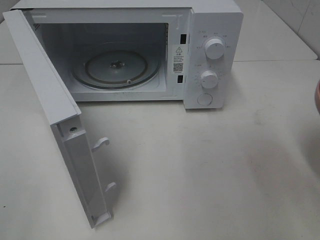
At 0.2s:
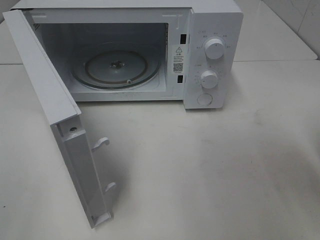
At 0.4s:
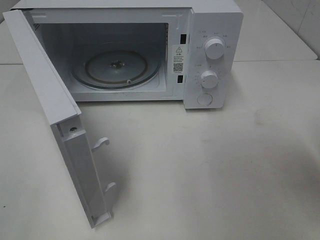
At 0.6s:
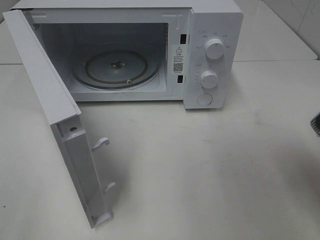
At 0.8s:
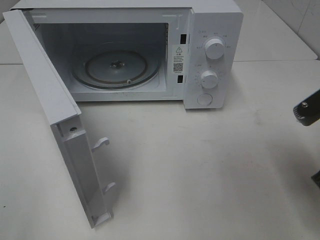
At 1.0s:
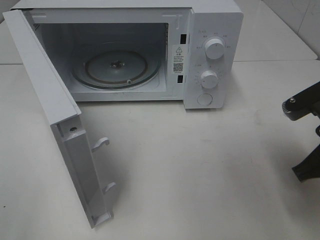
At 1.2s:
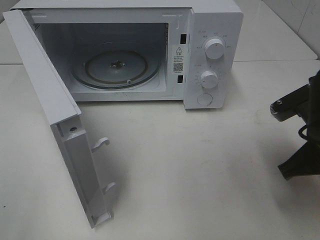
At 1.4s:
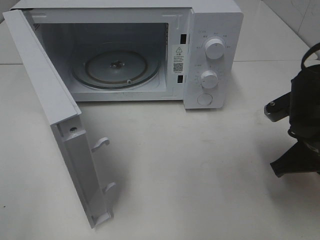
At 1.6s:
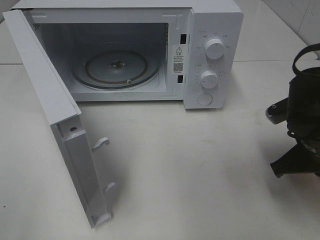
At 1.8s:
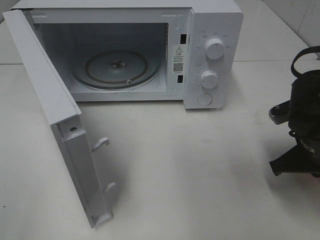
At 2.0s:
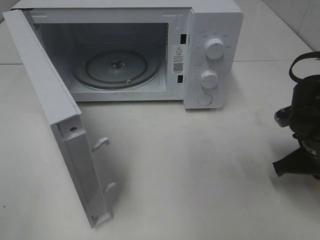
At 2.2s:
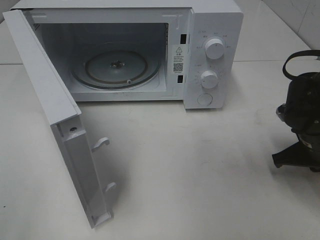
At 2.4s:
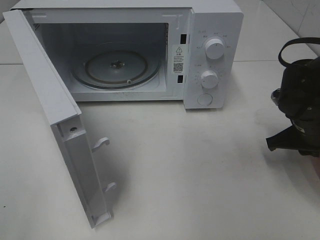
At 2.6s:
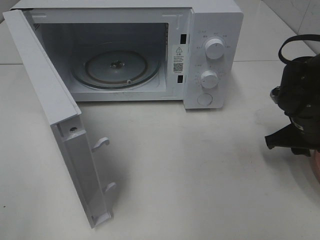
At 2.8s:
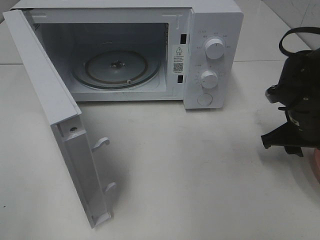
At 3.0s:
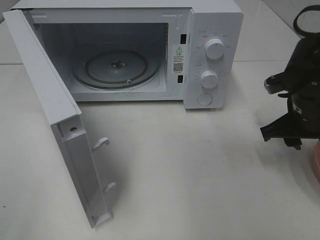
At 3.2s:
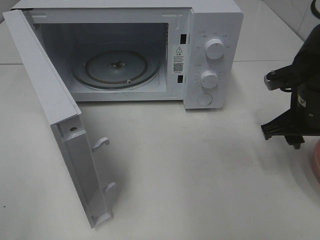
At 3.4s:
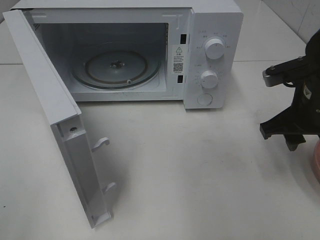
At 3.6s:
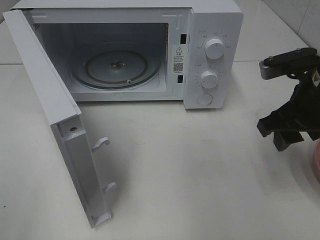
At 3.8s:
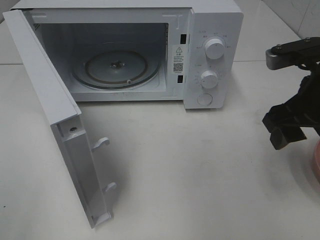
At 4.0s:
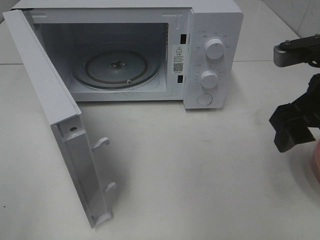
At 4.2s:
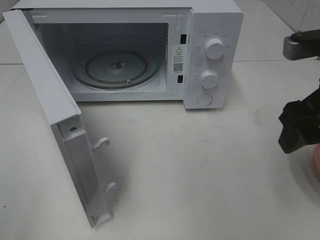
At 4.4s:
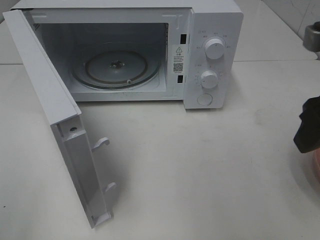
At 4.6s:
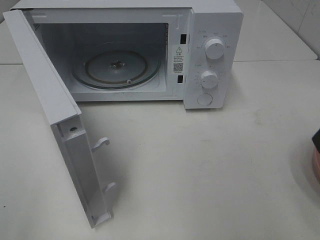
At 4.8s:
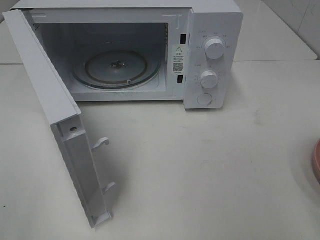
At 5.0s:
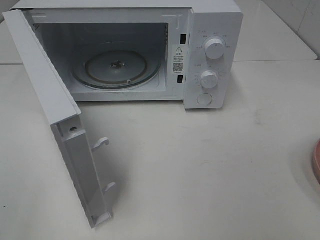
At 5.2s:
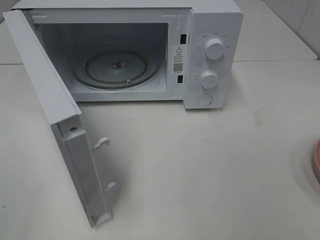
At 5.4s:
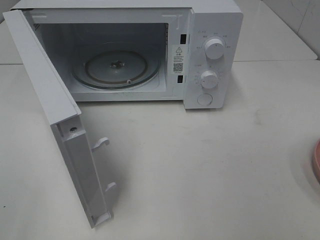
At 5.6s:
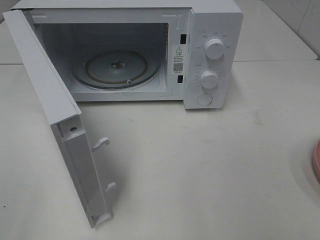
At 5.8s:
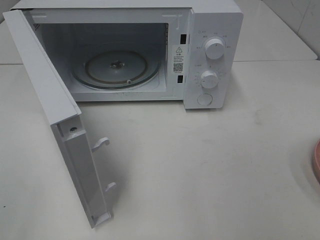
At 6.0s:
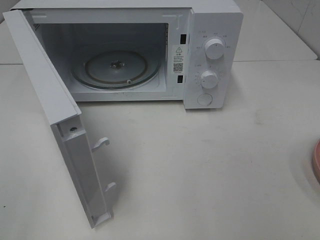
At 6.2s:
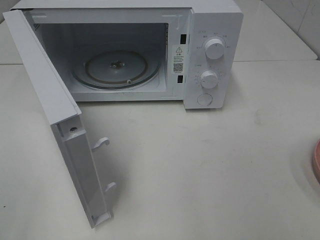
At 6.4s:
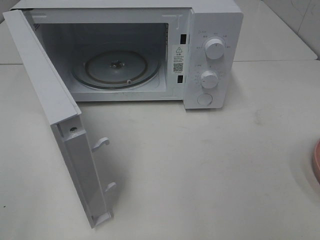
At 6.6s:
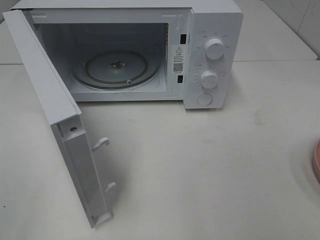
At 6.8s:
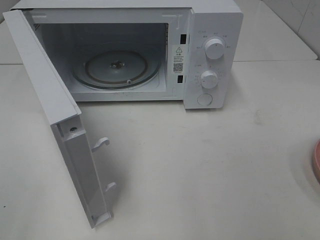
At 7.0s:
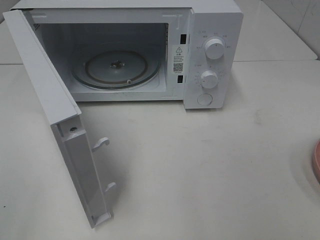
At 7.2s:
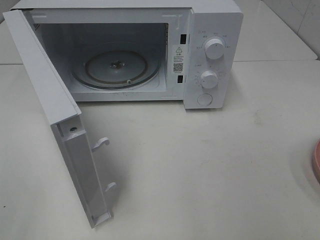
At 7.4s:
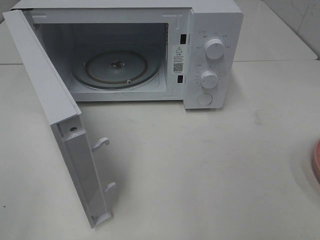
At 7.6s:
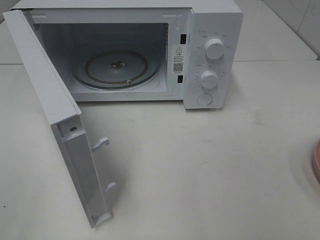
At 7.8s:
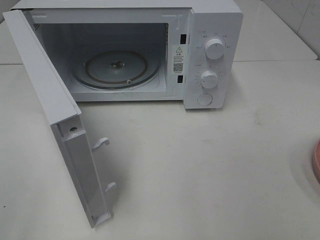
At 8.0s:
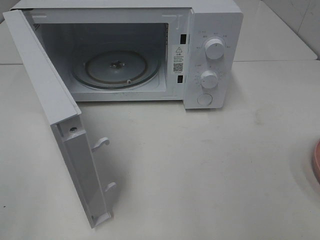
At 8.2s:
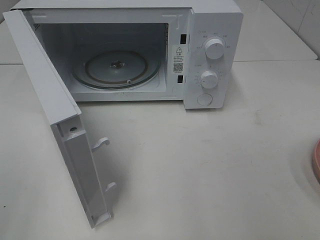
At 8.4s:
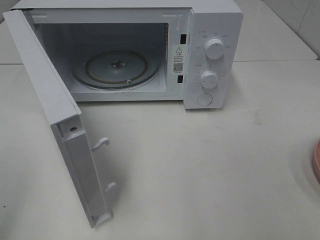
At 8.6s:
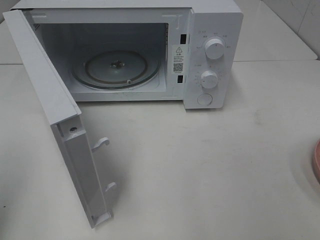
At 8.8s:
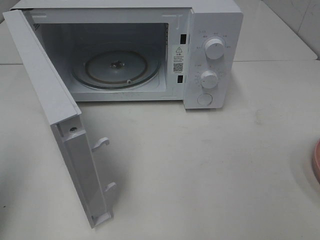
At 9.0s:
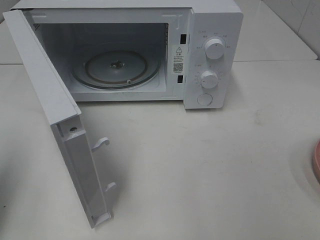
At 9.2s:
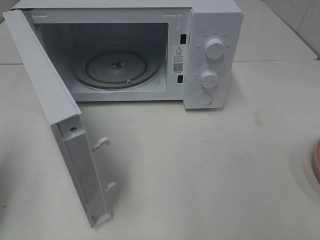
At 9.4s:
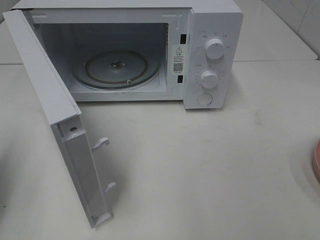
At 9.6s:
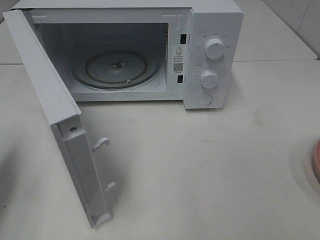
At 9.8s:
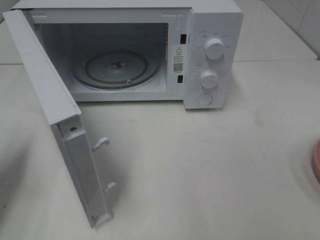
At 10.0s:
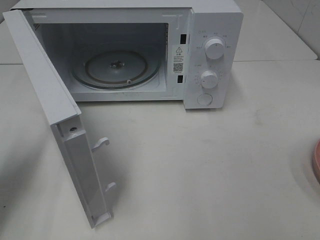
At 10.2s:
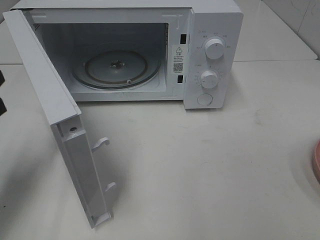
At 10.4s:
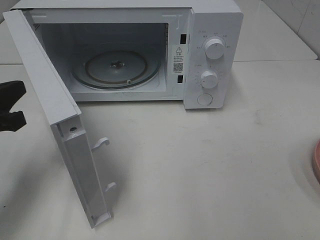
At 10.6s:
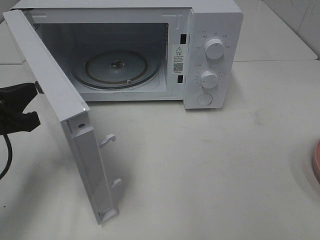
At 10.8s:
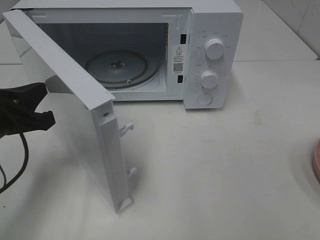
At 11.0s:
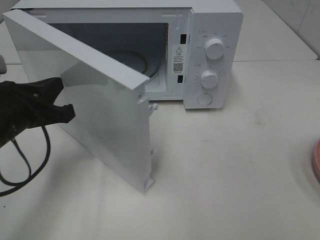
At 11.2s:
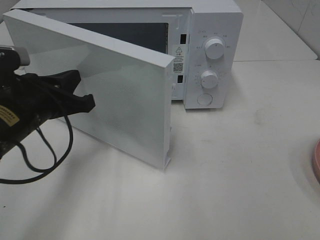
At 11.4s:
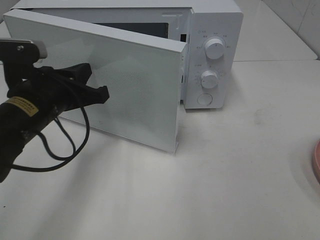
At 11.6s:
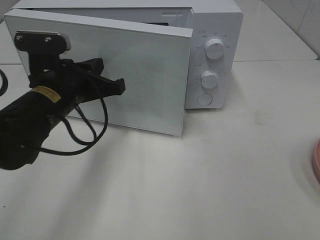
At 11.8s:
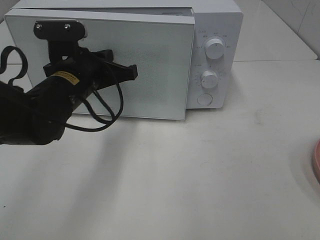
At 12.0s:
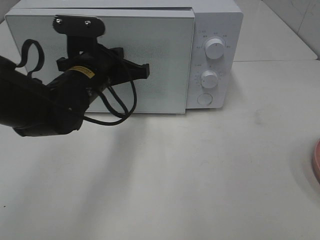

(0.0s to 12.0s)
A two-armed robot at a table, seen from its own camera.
Task of the whole recording: Heat the burger.
Step, 0.0s - 3.0s: Right hand: place the plate on the table.
0.0s - 1.6s: The right gripper travels forward and downward by roughly 15 cm.
1.6s - 3.0s: The right gripper moves forward, some 5 cm, and opens.
3.0s - 4.4s: The right gripper moves upward and backward, some 15 cm.
4.4s - 6.0s: The right gripper moves backward, roughly 20 cm.
6.0s - 7.6s: Both grippers stay put.
7.6s - 9.0s: The left gripper travels forward by approximately 15 cm, and closes its fingers.
9.0s - 10.4s: The left gripper travels downward, forward and to the right by roughly 15 cm.
10.4s - 12.0s: The left gripper heads to the right and forward, covering about 20 cm.

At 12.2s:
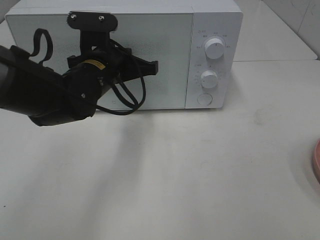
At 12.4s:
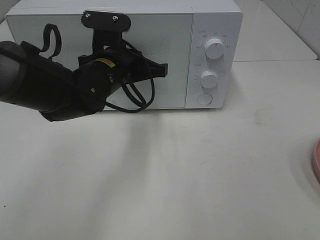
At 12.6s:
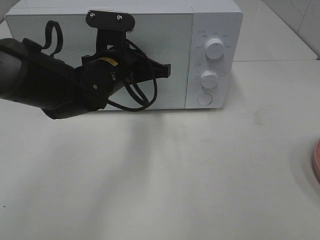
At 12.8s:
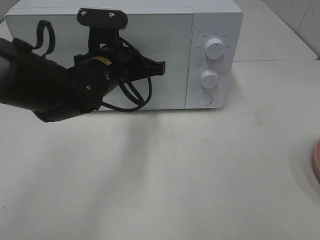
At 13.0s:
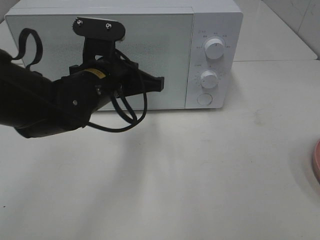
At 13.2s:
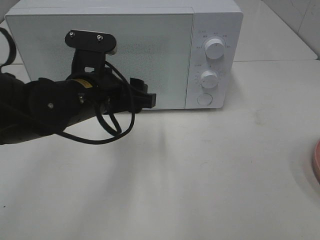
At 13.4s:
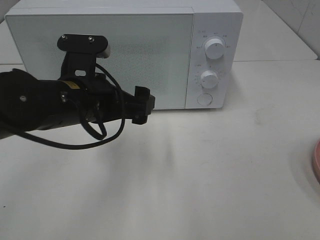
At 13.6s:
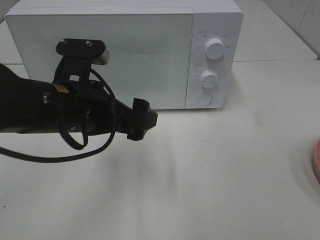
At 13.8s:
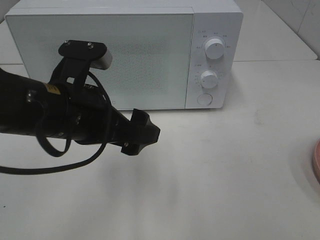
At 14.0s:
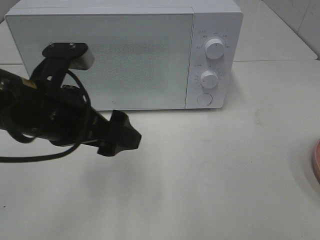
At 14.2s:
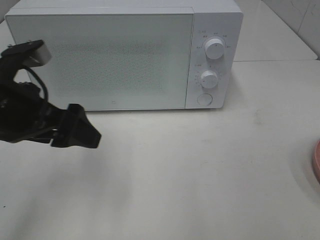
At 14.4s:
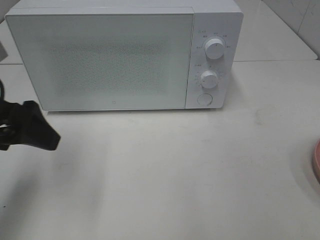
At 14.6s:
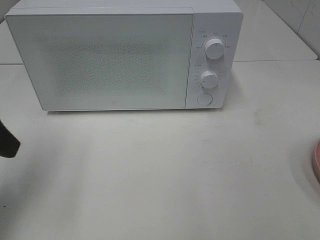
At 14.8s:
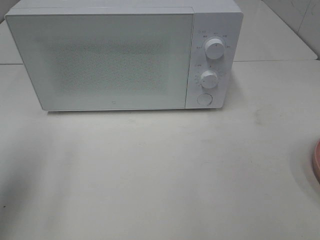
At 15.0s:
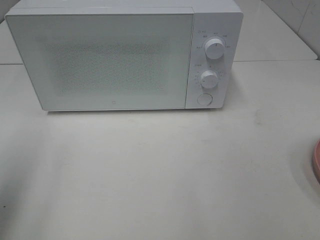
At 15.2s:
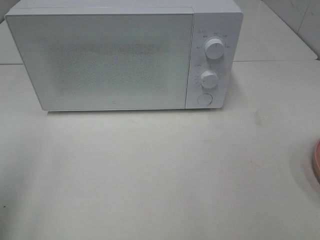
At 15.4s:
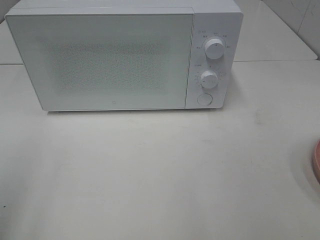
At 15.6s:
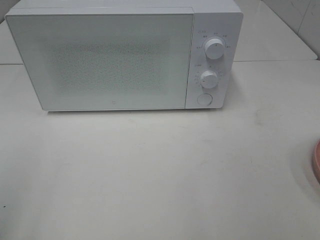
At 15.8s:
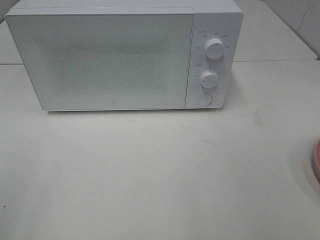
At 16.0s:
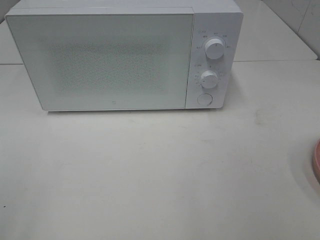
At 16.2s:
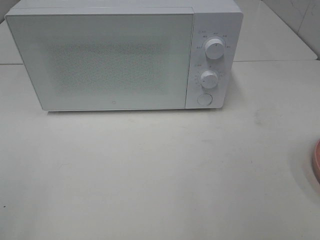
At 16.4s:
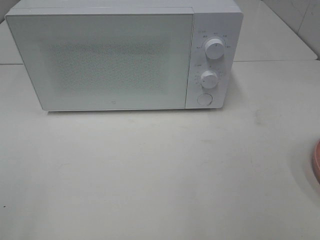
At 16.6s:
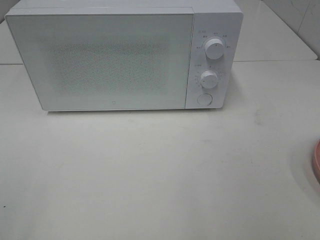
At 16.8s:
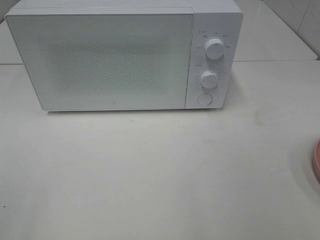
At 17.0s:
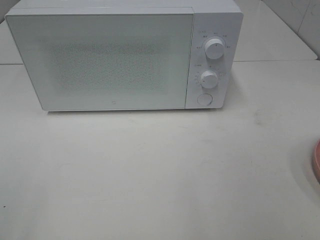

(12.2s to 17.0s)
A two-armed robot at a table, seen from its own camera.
Task of the whole recording: Heat the burger.
12.2s - 13.8s: The left gripper travels backward by approximately 15 cm, and opens its fingers.
13.8s - 15.4s: The left gripper moves to the left, backward and upward, approximately 25 cm.

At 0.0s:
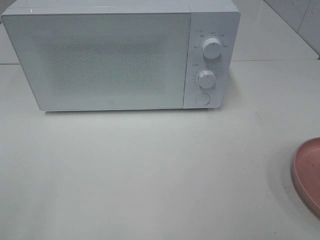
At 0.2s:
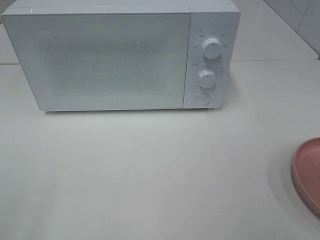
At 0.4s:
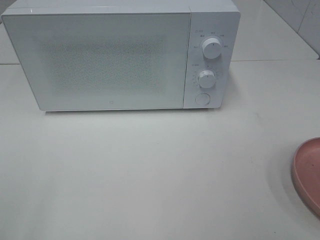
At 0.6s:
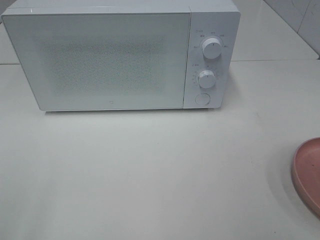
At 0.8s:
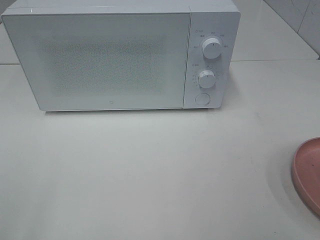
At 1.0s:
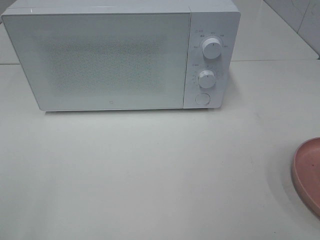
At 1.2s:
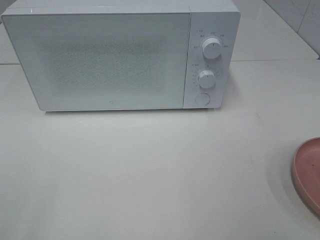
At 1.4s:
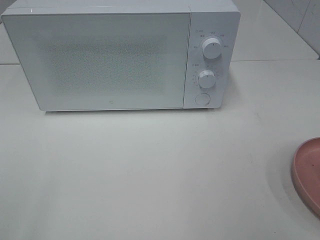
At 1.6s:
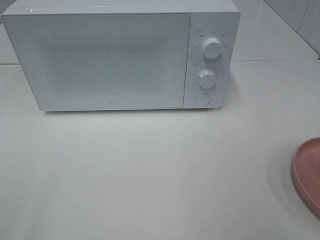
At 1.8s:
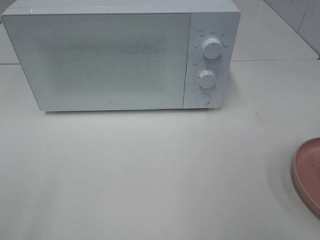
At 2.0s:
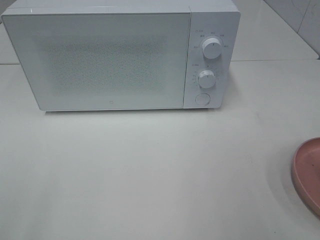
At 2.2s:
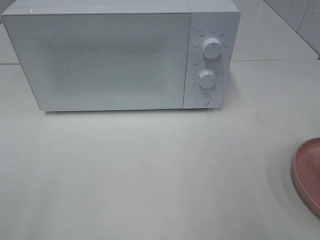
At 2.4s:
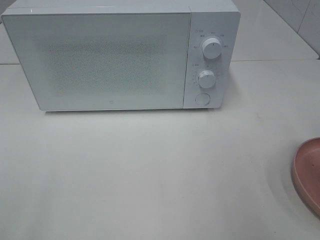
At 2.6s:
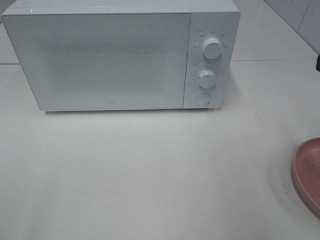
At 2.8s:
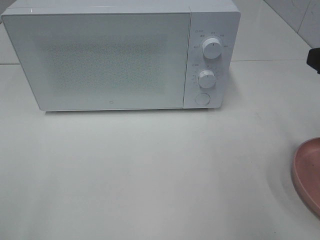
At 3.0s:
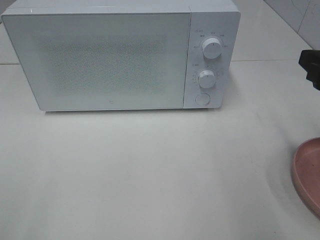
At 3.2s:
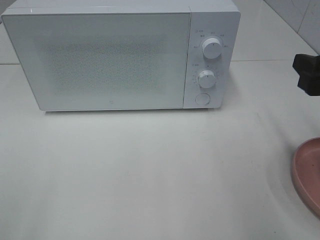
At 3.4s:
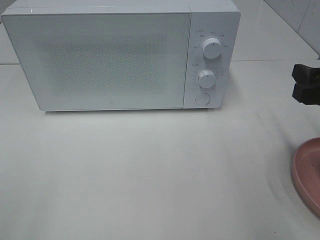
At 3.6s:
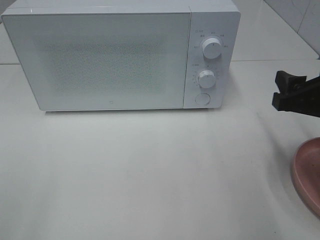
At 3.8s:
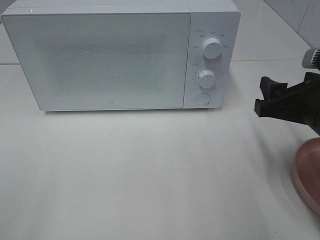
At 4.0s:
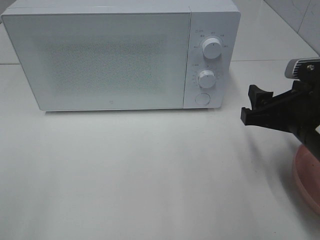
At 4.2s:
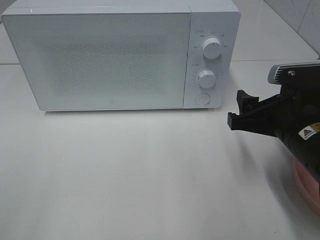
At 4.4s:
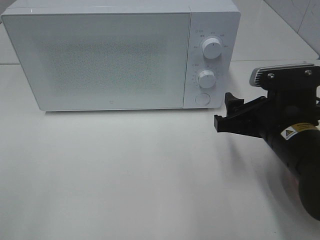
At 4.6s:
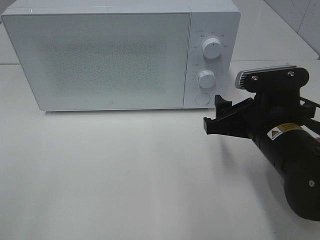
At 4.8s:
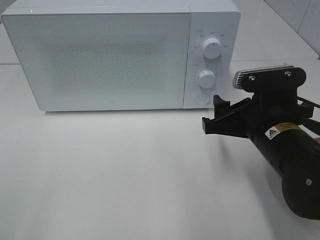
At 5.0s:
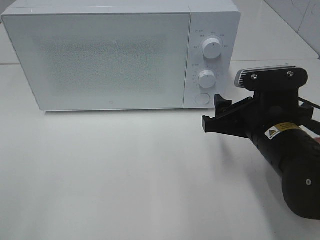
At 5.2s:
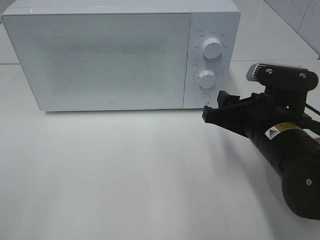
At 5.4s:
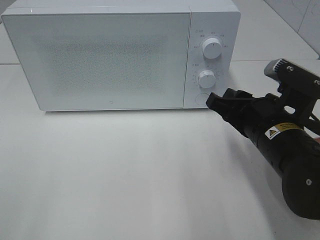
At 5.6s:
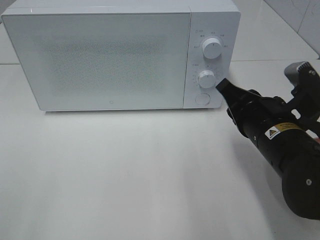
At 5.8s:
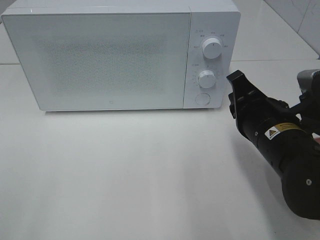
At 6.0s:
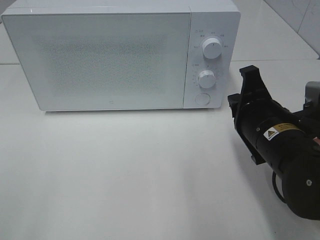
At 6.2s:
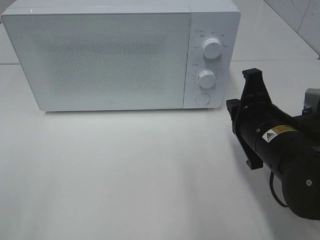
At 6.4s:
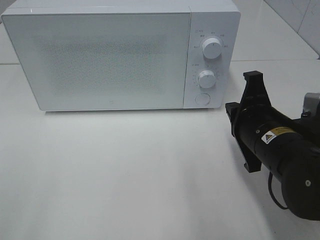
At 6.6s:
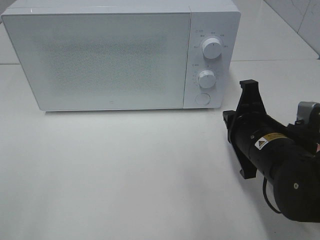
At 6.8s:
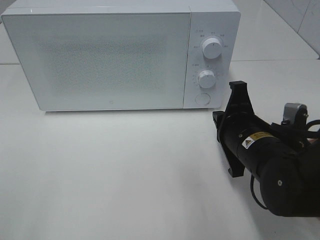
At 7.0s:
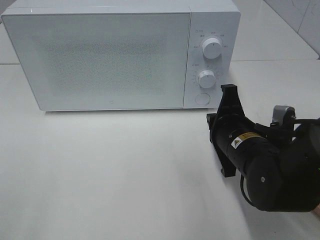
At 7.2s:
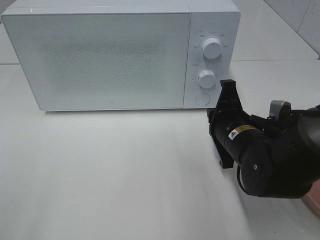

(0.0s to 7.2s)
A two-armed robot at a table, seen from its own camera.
Task of the whole recording: Heat the burger.
2.8s - 4.4s: The right gripper goes about 15 cm downward and to the left.
4.4s - 5.8s: The right gripper closes its fingers.
5.8s - 7.2s: The right gripper changes place by roughly 5 cm.
